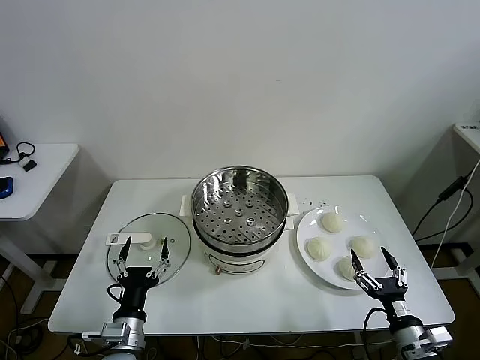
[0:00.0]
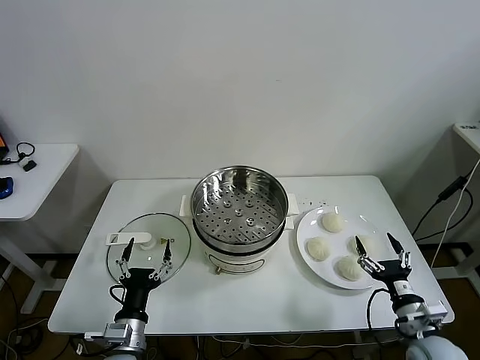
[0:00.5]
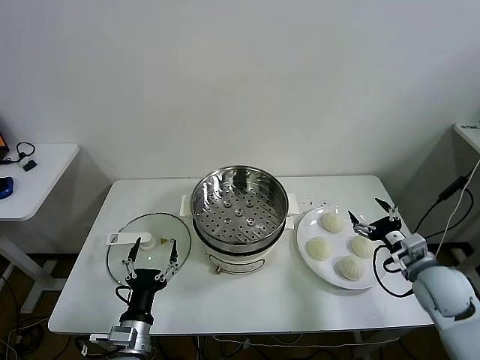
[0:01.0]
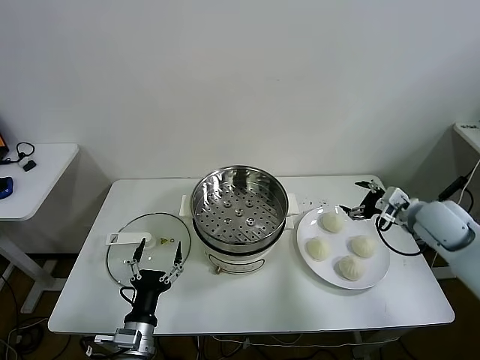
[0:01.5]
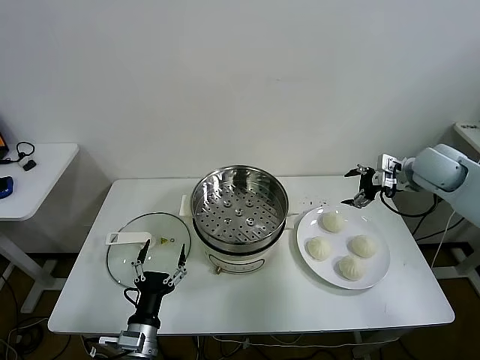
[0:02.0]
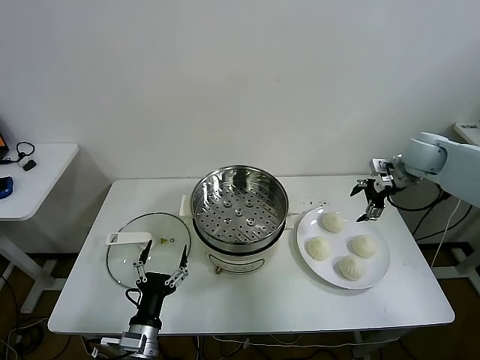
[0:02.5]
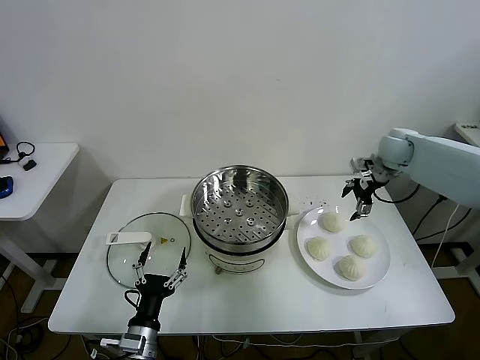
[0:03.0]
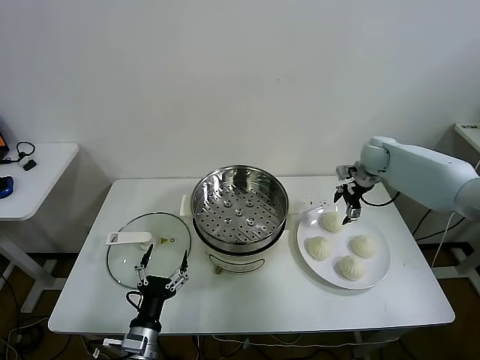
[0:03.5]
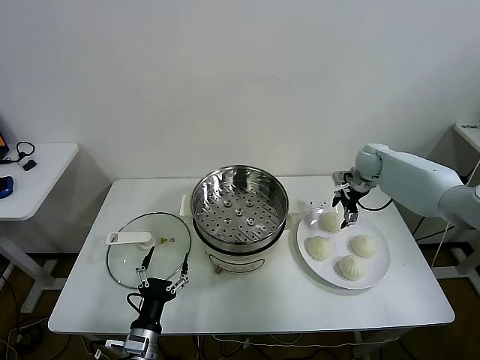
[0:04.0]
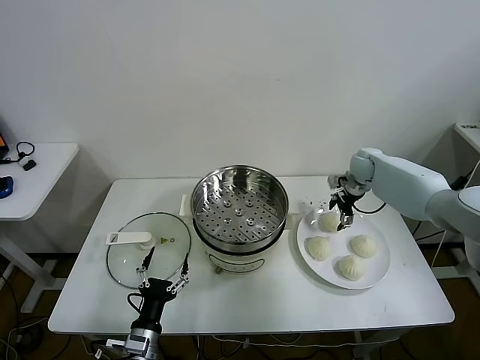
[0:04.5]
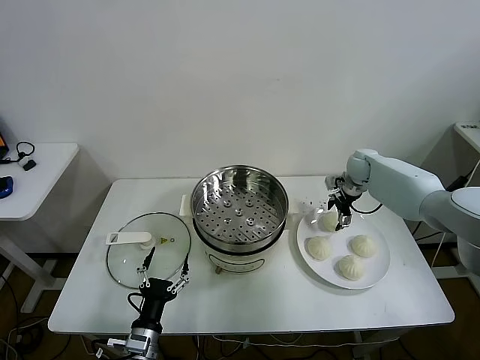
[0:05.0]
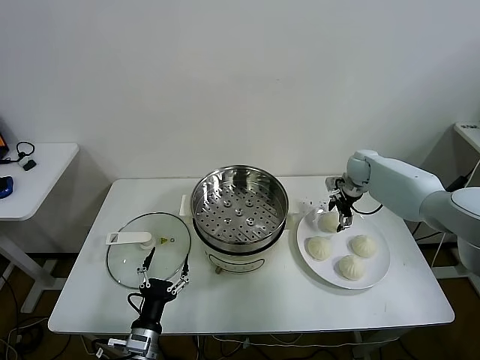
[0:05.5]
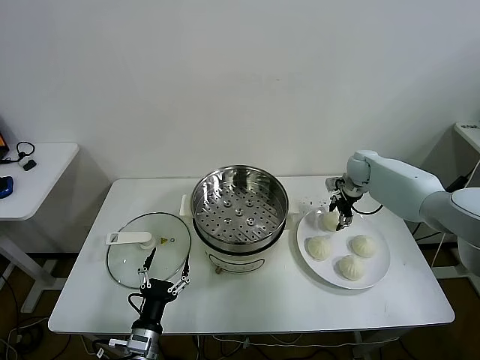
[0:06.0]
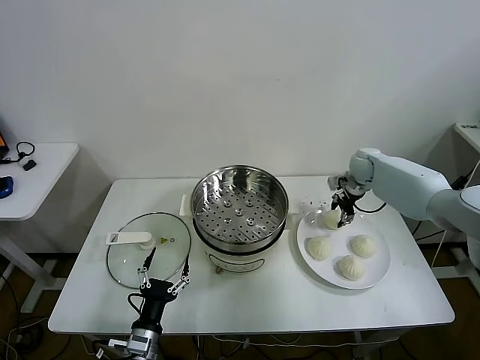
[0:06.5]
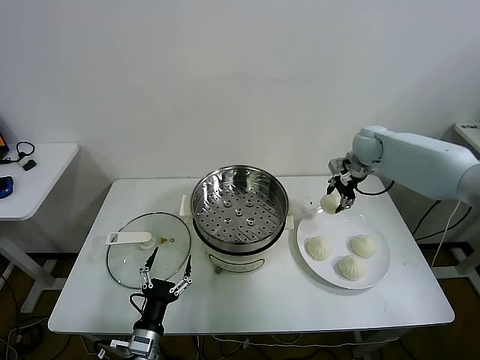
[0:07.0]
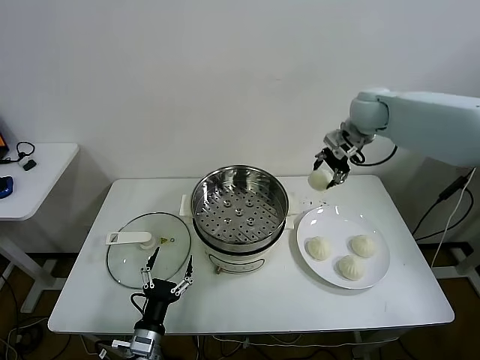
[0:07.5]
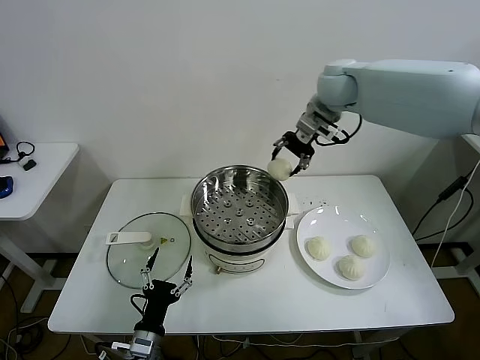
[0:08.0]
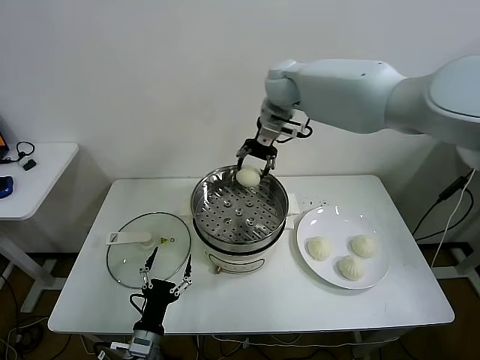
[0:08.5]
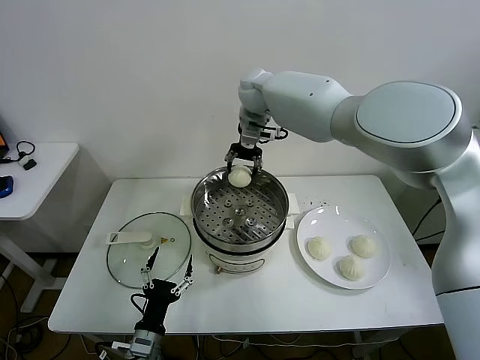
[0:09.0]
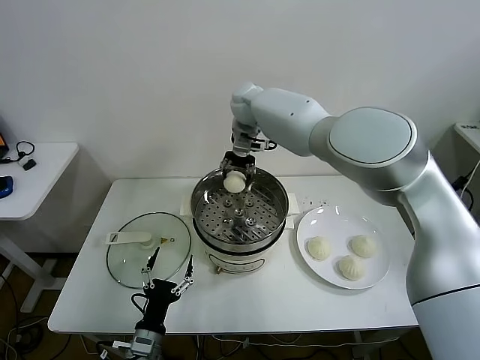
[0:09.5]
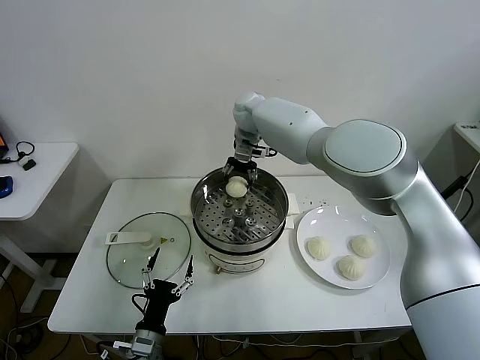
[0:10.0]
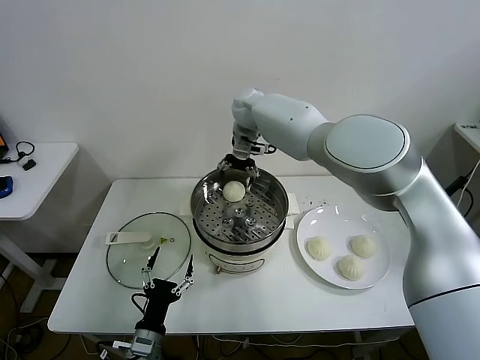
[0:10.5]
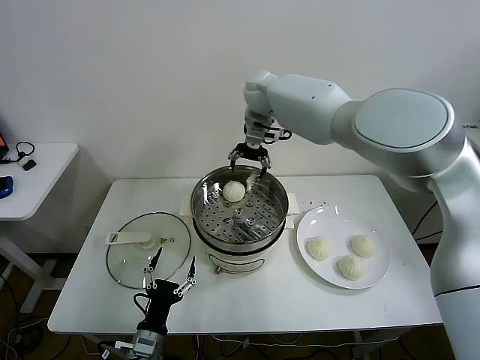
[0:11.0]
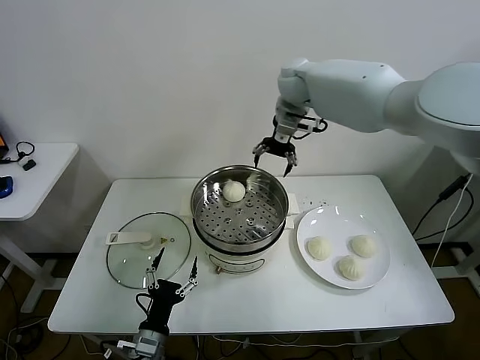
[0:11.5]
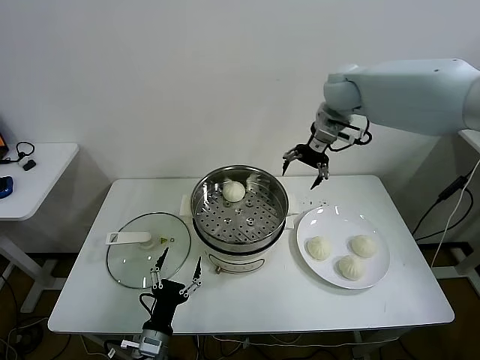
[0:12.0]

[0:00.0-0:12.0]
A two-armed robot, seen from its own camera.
Task of the whole recording: take steamed baozi put them in steamer.
Step, 0:00.0 to 0:06.0: Grasp the baozi in the plate with right gripper.
Step, 0:06.5 to 0:10.0: Place the baozi on the steamer with right gripper.
0:02.0 to 0:04.0: The right gripper is displaced forward and downward by roughly 15 cm.
0:04.0 to 0:06.0: The grippers make only small movements.
0:06.0 to 0:08.0: The right gripper goes roughly 30 cm upward and to the left.
0:08.0 to 0:10.0: The right gripper travels to the left, downward and forward by some 20 cm.
0:10.0 to 0:12.0: The right gripper goes approximately 25 cm to the right and upward.

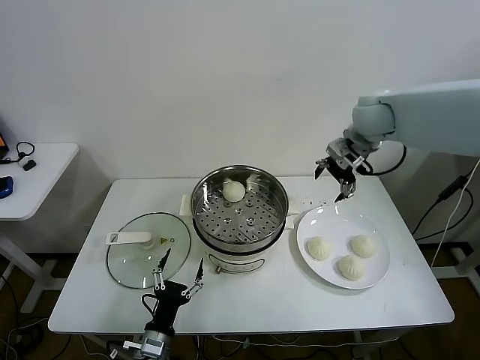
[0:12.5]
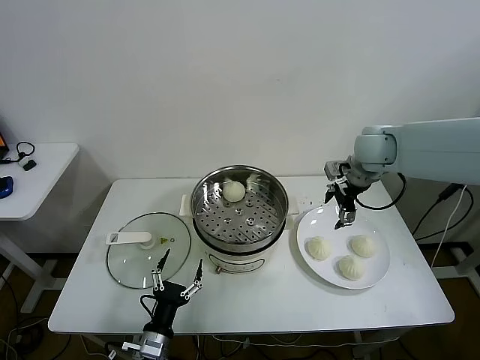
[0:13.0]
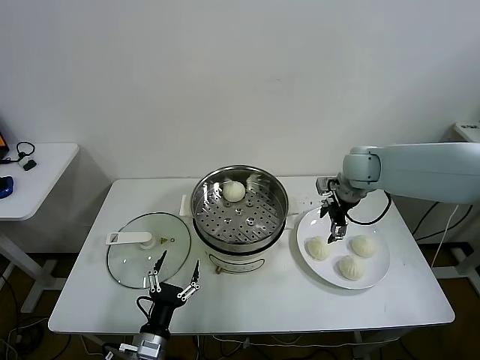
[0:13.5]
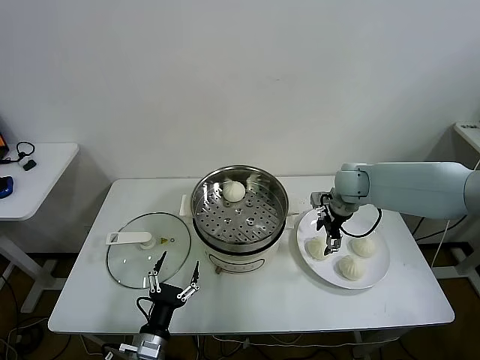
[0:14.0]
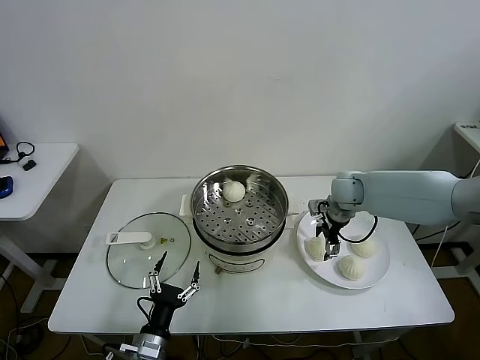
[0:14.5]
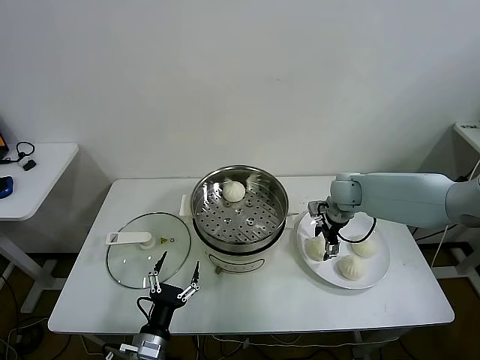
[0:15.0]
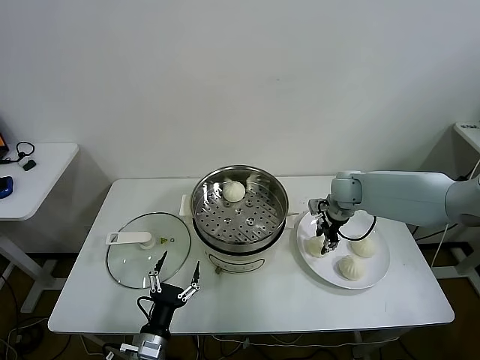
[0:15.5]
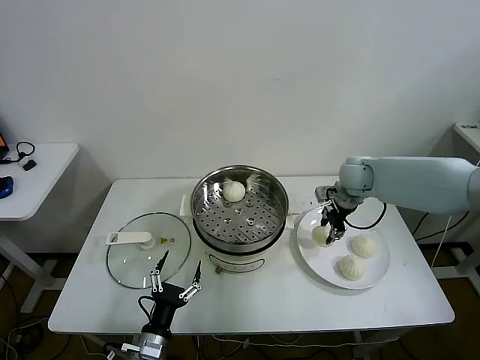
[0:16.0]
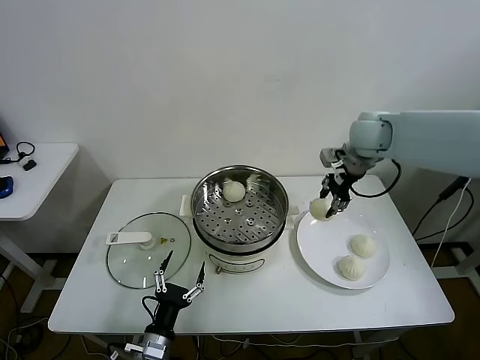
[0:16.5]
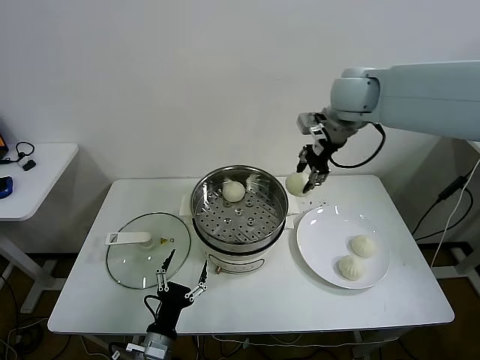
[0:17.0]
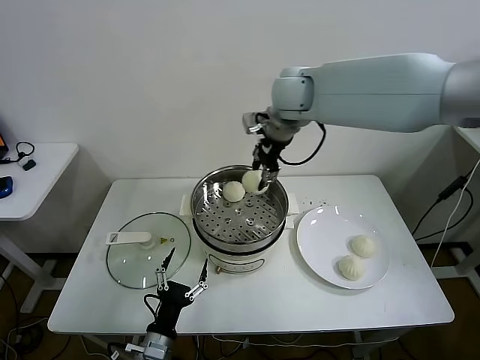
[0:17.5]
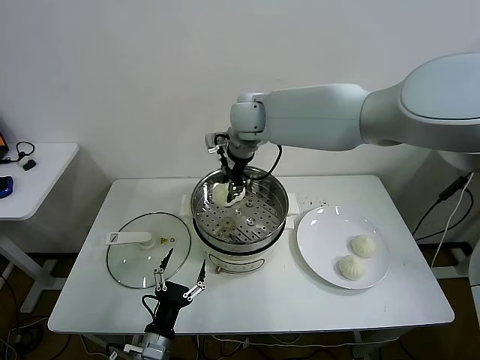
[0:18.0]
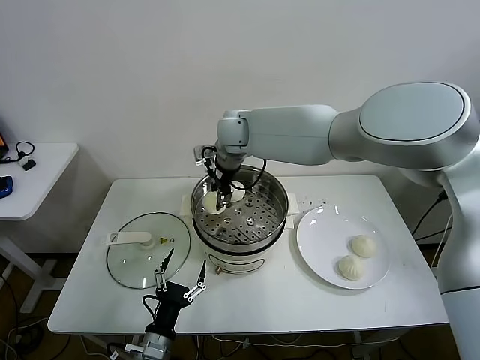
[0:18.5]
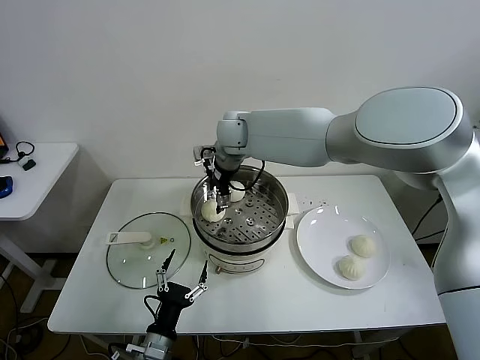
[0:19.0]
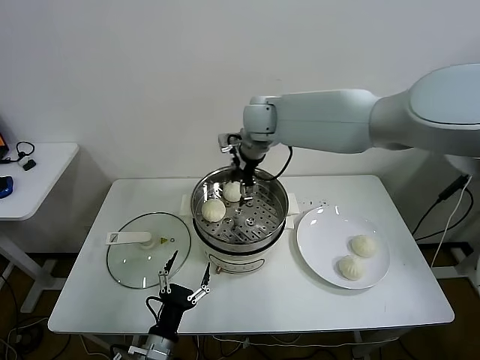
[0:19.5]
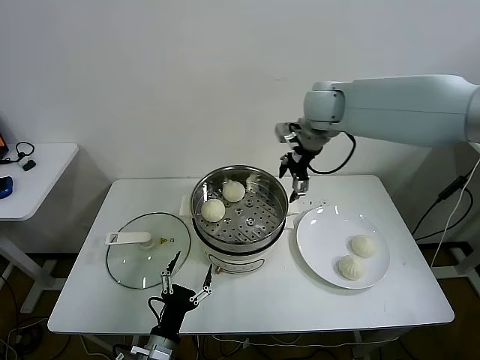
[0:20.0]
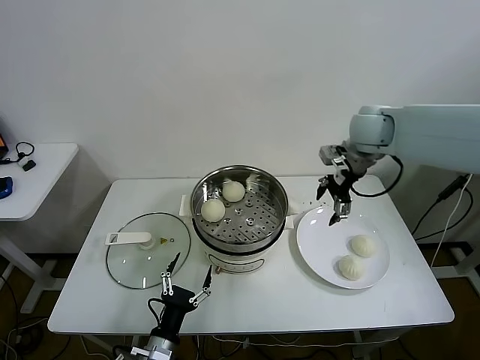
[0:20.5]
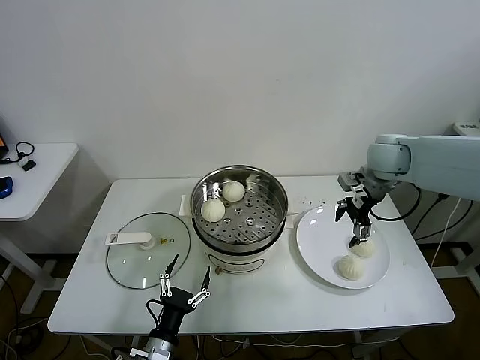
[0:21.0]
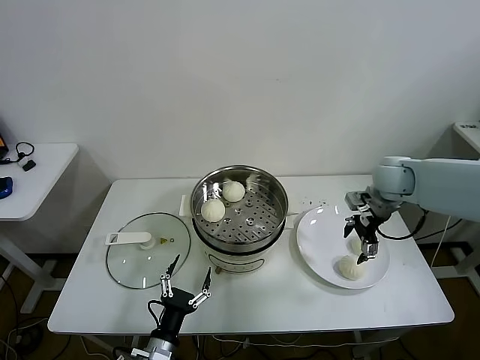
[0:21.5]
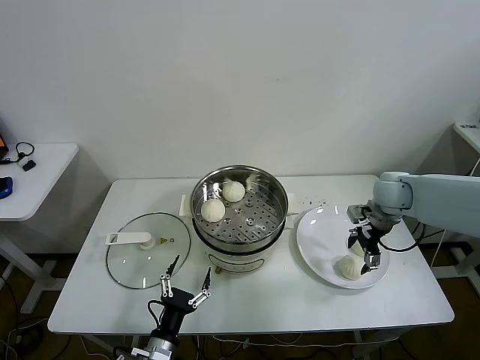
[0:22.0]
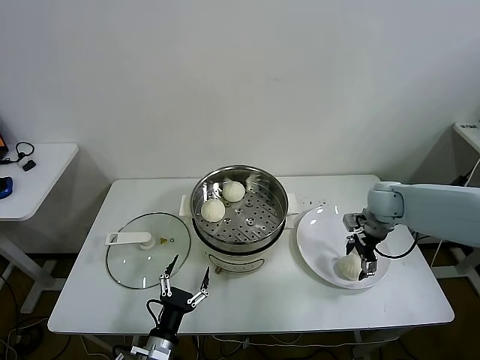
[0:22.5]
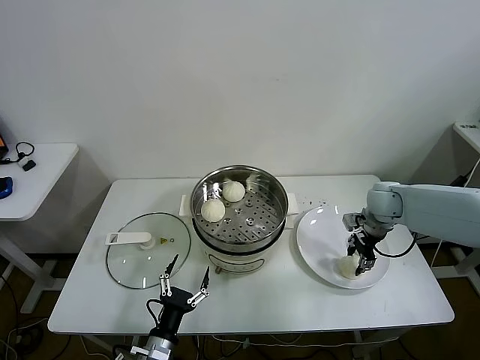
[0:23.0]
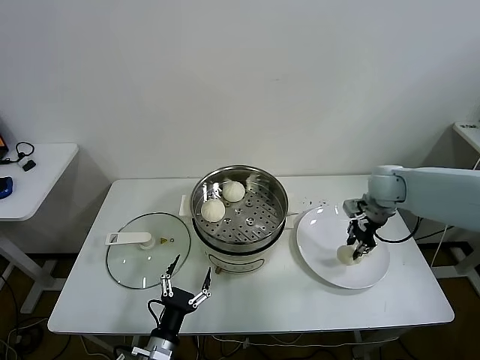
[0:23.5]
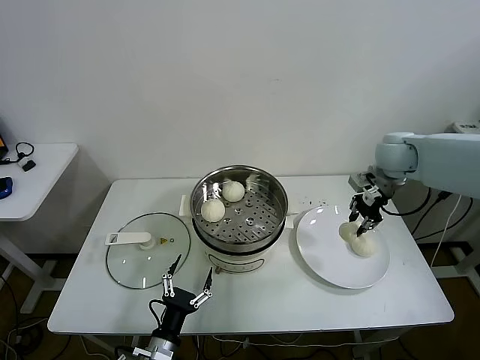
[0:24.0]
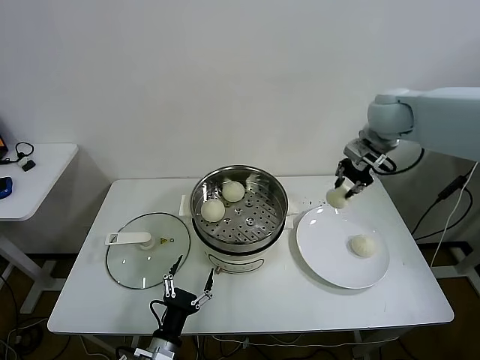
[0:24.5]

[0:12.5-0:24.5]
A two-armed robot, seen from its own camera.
Task of the whole recording: take steamed baozi put them in steamer.
Step, 0:12.5 to 0:15.5: Grasp the baozi in the plate with right gripper.
Step, 0:16.0 to 0:19.0: Place the baozi on the steamer with right gripper.
Step, 0:19.5 to 0:23.0: Grasp the baozi in the plate with right gripper.
0:12.5 to 0:14.5: The right gripper shifts approximately 20 cm downward.
0:14.5 to 0:16.5: The right gripper heads upward, covering roughly 20 cm, and closes up.
0:16.5 to 0:18.5: The right gripper is displaced to the left by about 30 cm.
0:18.5 to 0:20.5: The right gripper is displaced to the right by approximately 30 cm, and opens.
0:20.5 to 0:22.5: The right gripper heads downward and to the right, covering about 20 cm.
0:22.5 to 0:24.5: The right gripper heads upward, covering approximately 20 cm, and closes.

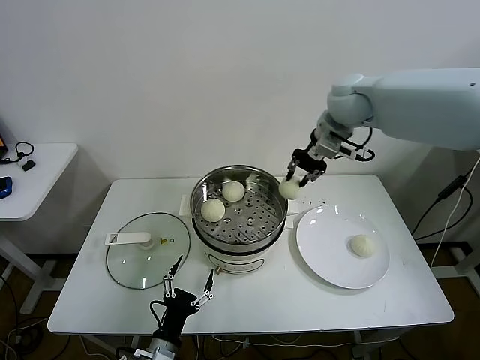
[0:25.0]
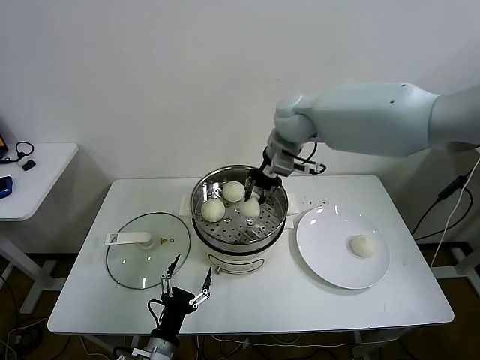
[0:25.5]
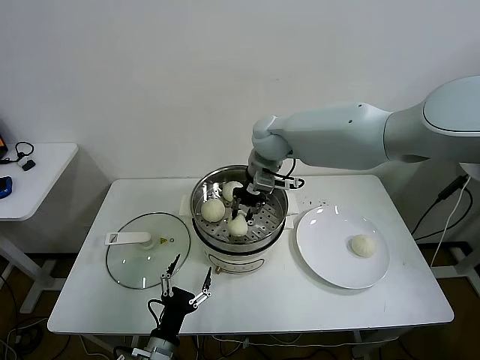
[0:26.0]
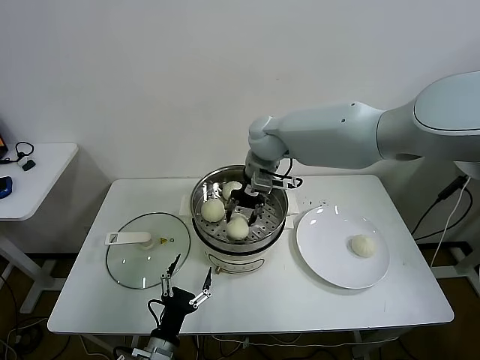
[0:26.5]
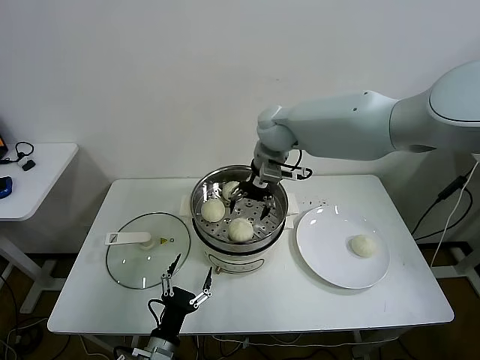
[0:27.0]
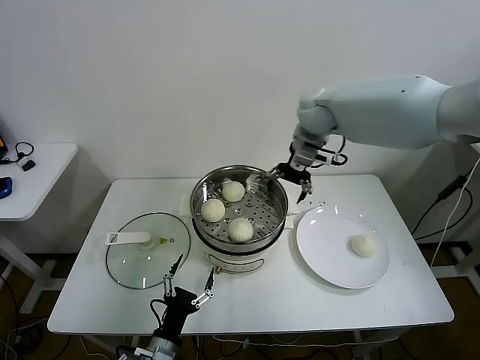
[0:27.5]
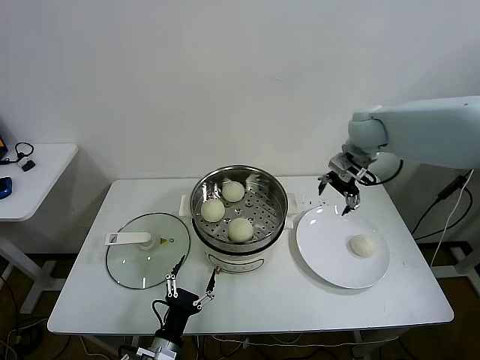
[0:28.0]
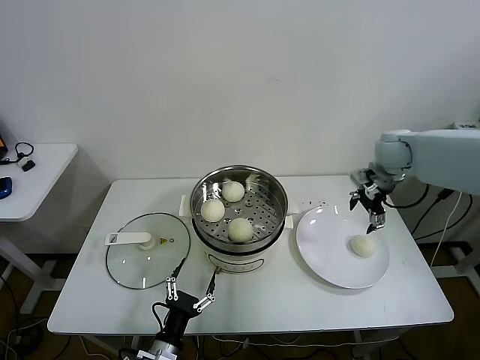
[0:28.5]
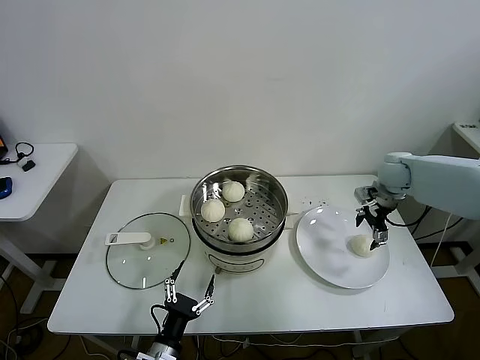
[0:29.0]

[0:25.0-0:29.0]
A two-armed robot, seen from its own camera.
Task of the whole recording: take steamed baozi put them in steamer.
0:25.0 to 0:27.0: The right gripper is displaced to the left and downward by roughly 15 cm, and opens.
0:27.0 to 0:29.0: The right gripper shifts about 35 cm to the right and downward.
